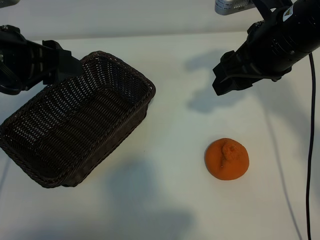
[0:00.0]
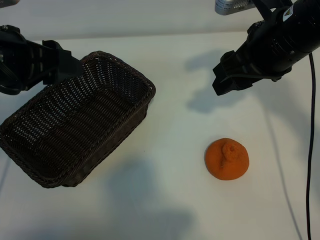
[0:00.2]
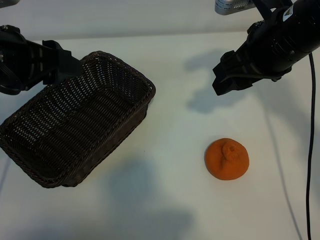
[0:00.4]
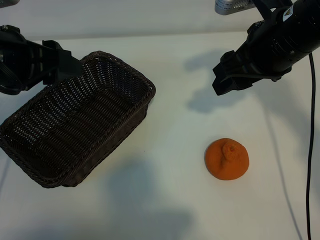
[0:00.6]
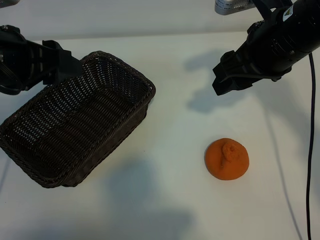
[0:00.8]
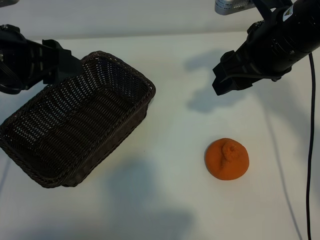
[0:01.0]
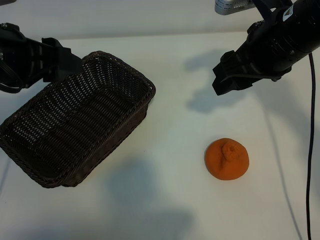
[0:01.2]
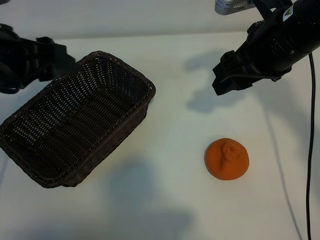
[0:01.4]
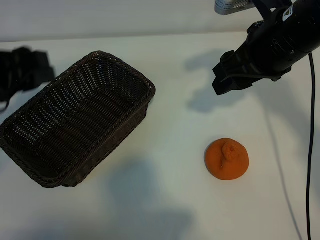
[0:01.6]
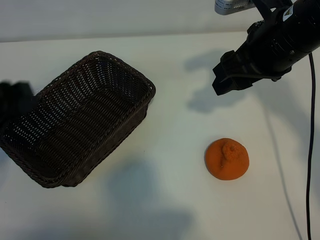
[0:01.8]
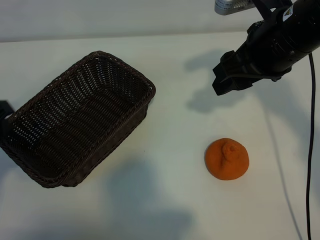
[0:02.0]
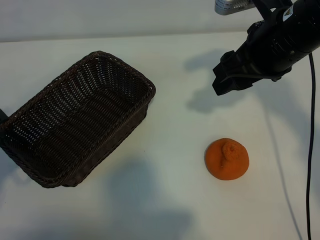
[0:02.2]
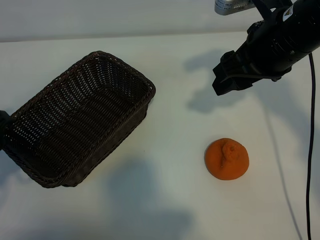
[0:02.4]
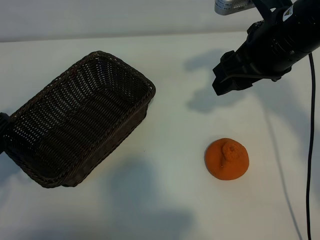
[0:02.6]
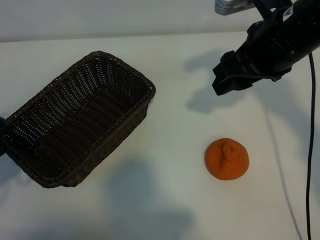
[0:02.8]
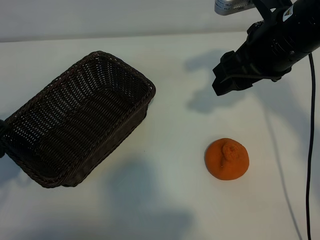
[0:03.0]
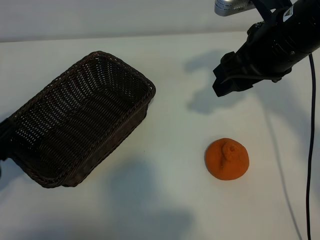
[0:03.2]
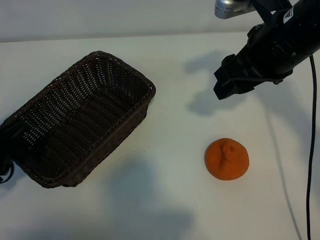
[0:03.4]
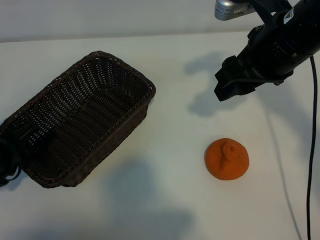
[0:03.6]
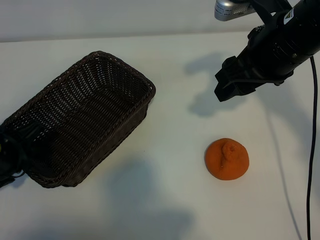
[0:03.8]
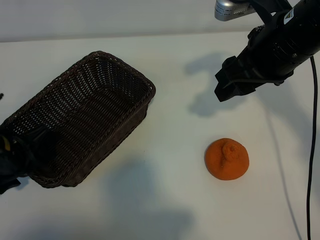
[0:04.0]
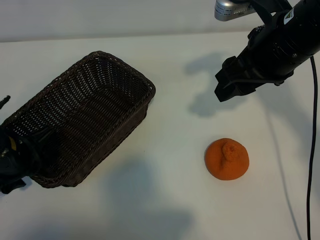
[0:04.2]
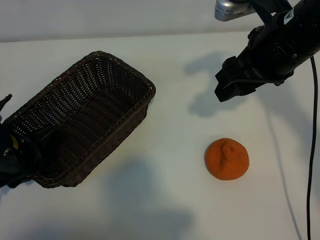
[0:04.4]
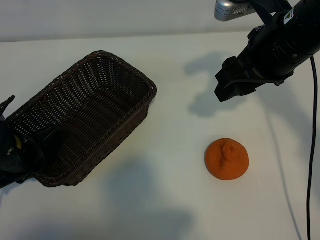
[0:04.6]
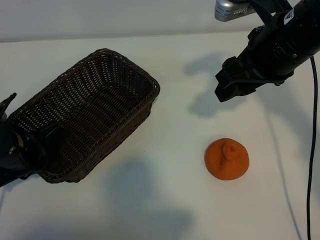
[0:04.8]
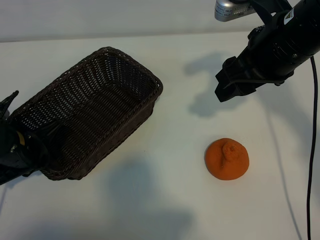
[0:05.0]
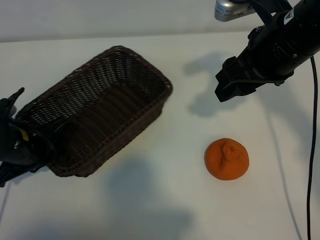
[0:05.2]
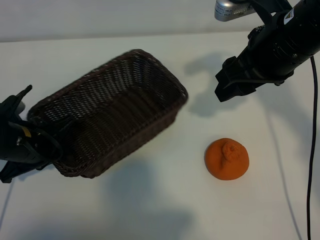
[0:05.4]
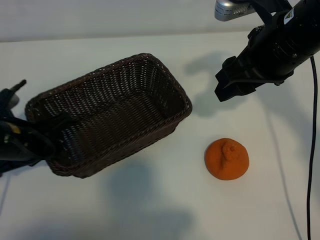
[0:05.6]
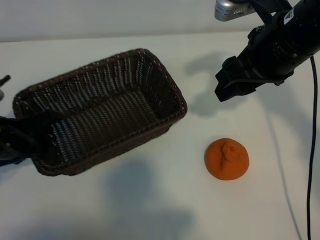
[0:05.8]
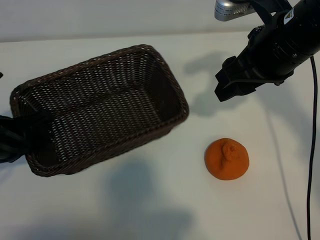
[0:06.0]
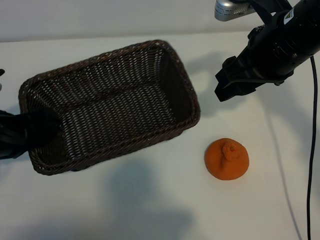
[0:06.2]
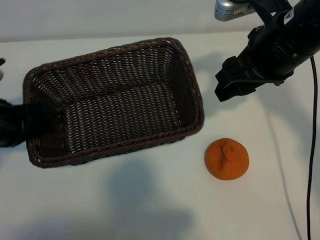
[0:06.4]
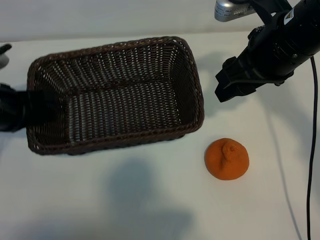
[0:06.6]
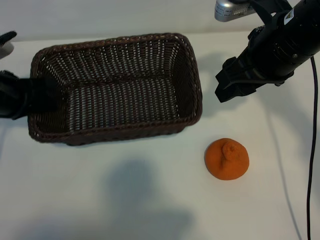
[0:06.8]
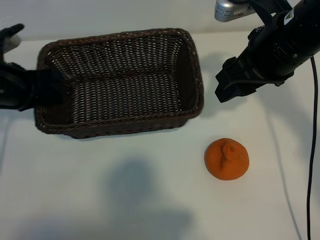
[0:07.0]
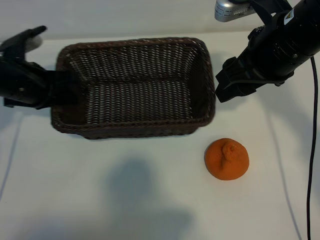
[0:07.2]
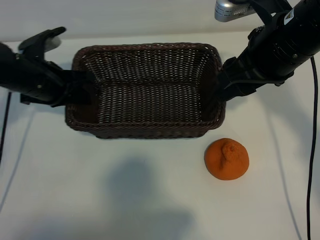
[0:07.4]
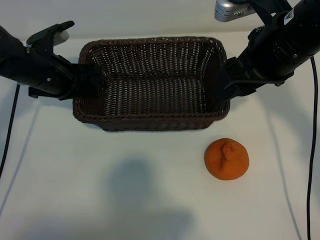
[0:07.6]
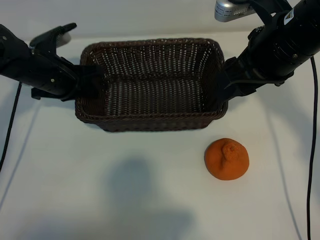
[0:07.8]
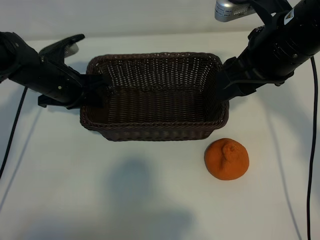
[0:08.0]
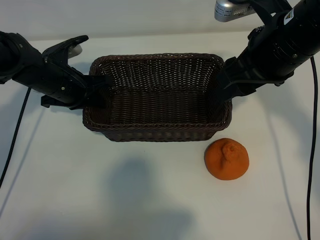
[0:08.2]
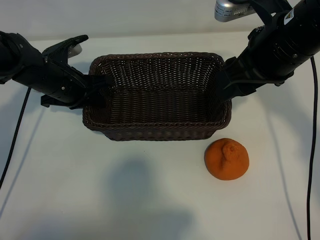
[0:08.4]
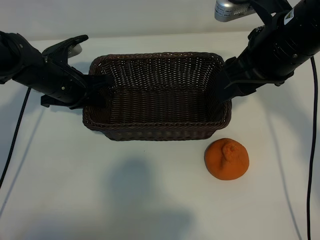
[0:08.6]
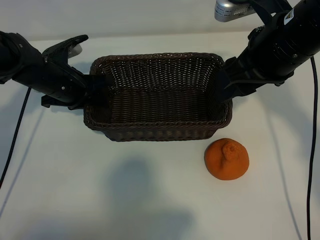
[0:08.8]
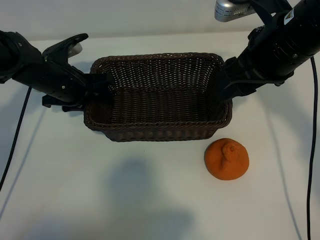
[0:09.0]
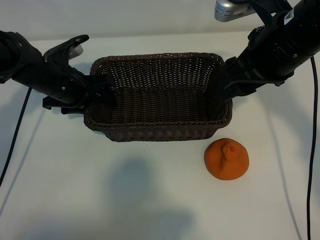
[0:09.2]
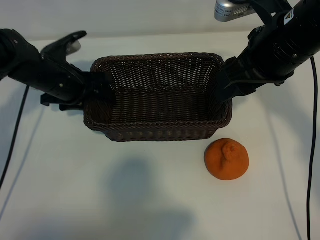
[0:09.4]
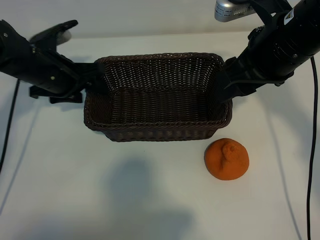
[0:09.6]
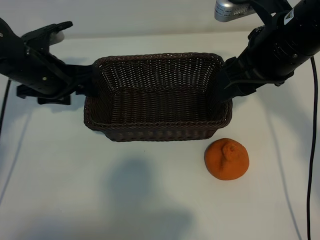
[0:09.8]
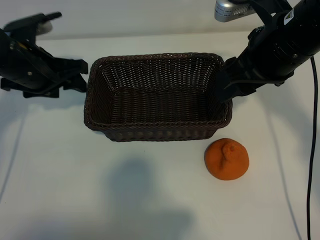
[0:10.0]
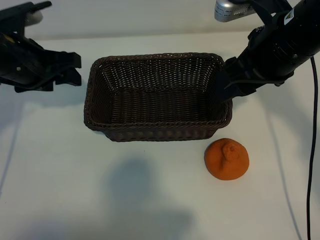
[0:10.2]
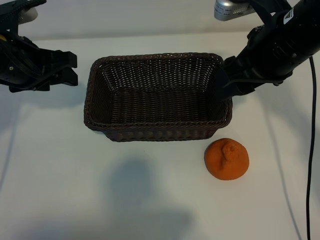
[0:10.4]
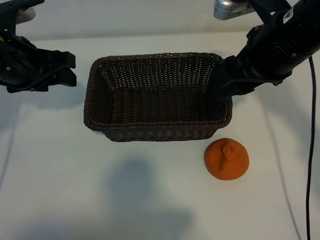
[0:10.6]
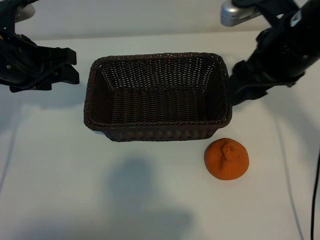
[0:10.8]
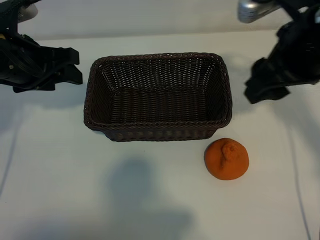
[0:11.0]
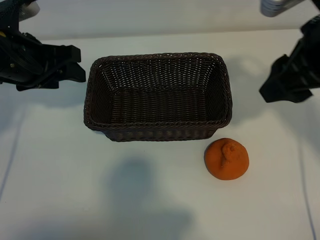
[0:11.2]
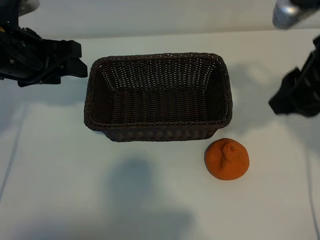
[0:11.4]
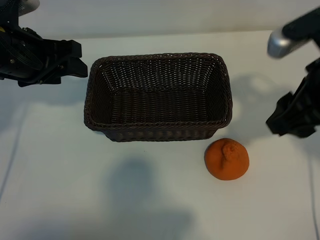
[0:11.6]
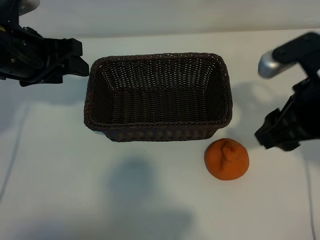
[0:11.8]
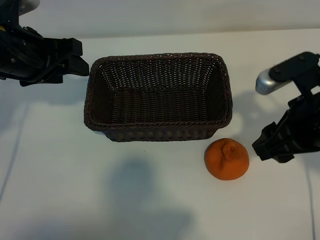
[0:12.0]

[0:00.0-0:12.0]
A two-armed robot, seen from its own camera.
Task of the whole recording: pick up the orange and put it into the basket.
Step, 0:01.0 to 0:04.8: Grasp the basket with left gripper.
Step, 0:05.0 to 0:08.8: Place the basket in the center of view with left gripper.

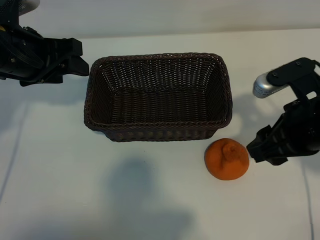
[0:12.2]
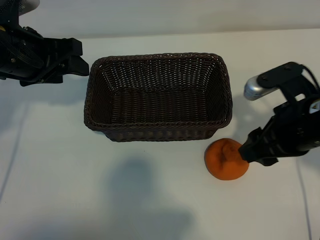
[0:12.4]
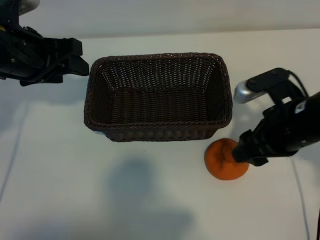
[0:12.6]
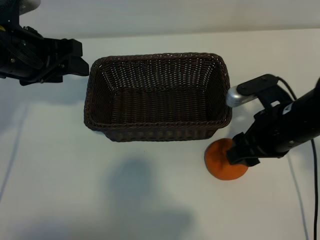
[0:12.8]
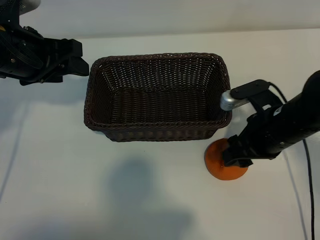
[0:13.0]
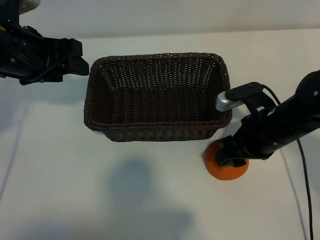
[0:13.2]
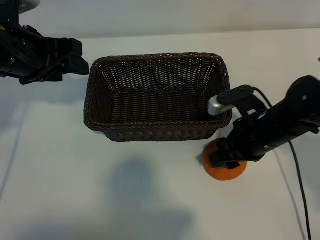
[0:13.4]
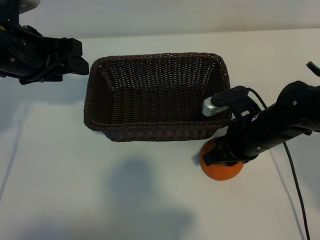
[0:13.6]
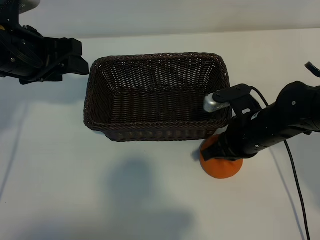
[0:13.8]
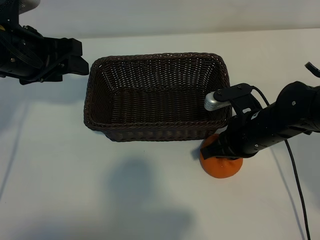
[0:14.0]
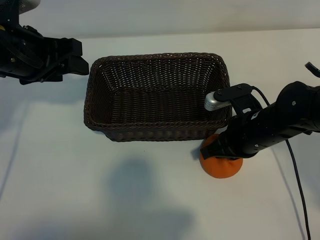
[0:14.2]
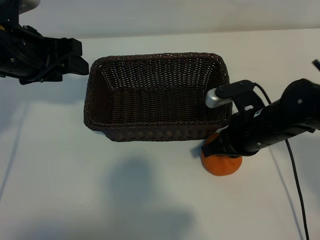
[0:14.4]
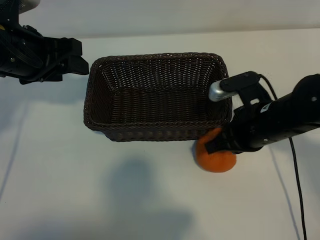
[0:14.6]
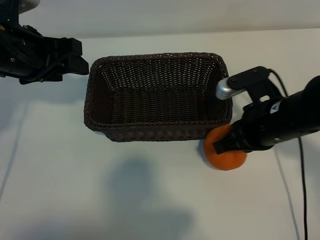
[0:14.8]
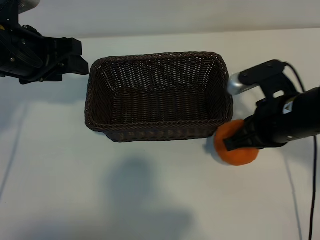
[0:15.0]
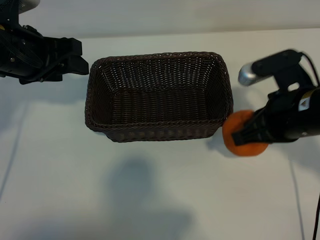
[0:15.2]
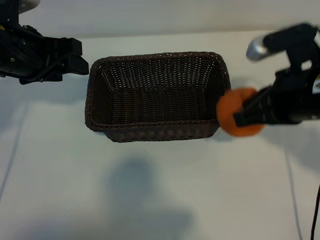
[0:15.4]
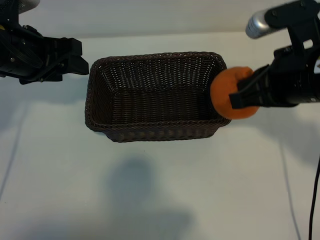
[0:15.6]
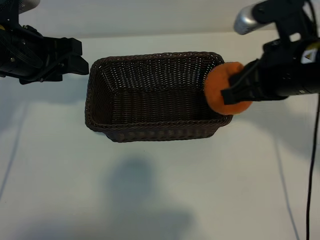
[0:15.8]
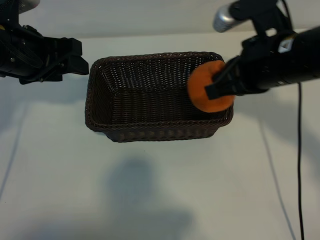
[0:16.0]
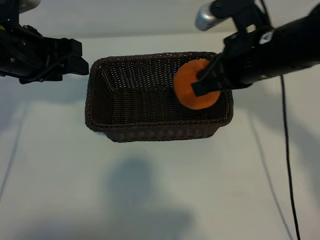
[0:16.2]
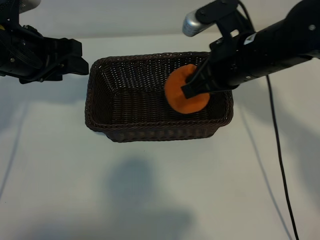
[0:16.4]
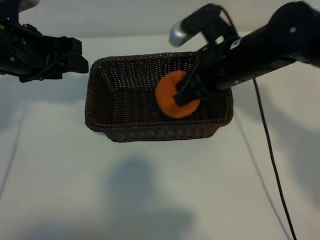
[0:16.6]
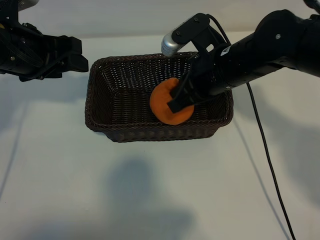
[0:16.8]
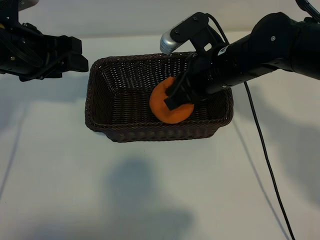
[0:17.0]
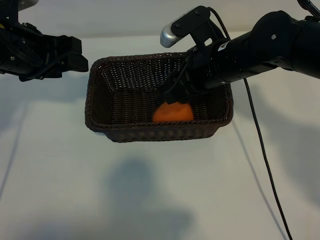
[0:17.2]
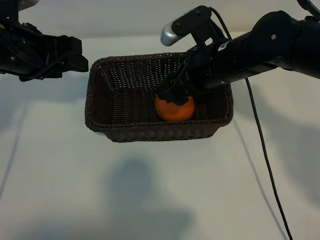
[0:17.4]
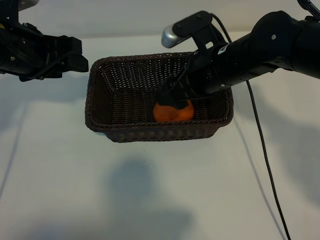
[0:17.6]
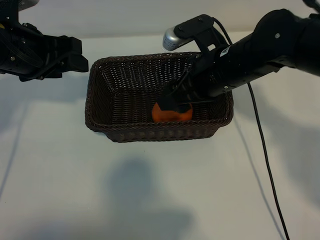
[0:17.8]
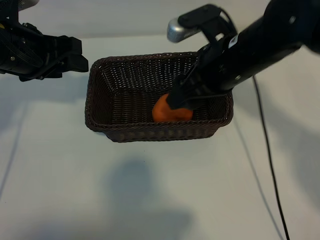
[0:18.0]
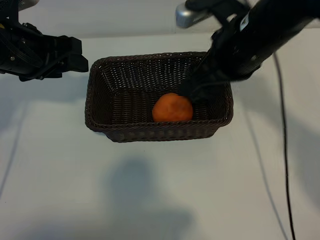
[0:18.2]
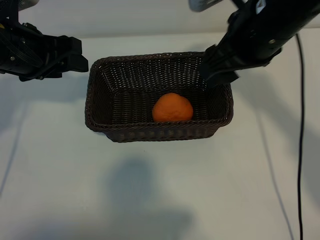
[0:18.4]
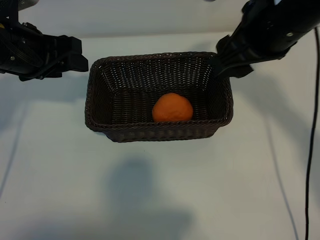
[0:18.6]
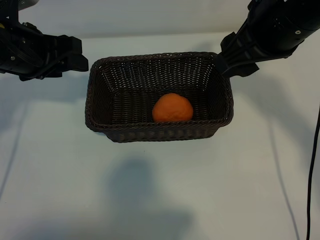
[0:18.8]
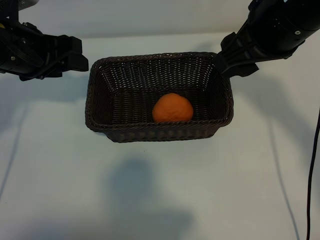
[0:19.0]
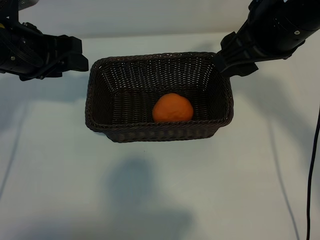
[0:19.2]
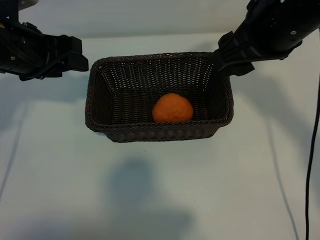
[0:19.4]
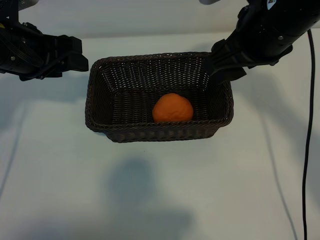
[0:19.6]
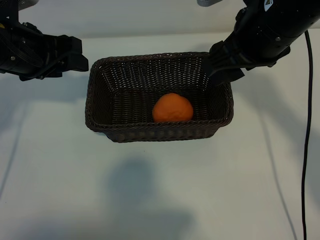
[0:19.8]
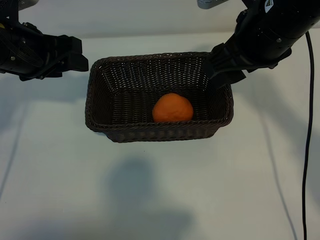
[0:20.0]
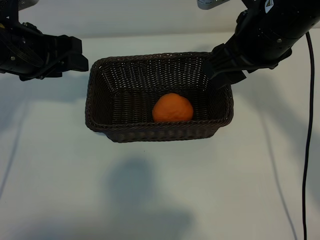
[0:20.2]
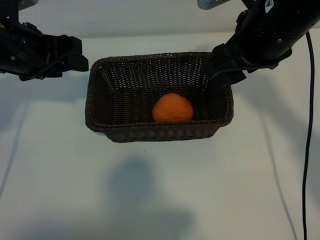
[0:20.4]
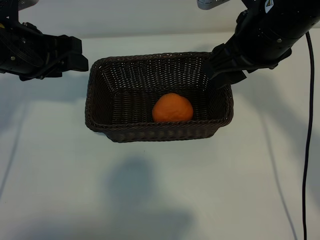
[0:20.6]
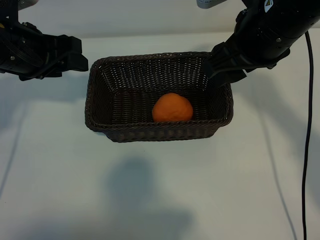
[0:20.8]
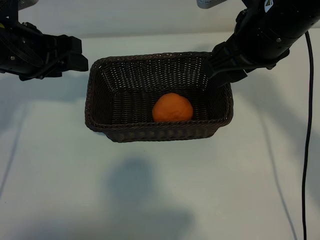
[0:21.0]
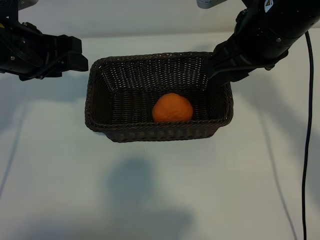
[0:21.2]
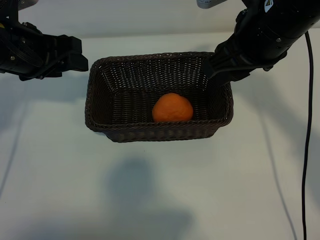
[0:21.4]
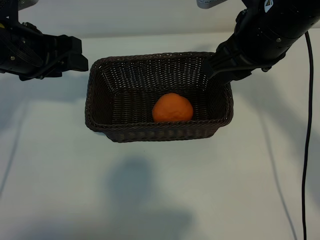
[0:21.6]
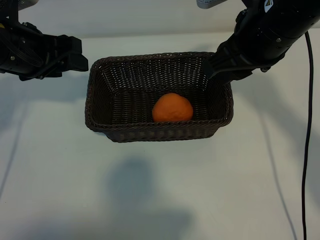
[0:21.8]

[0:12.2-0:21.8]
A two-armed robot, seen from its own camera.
Task of the whole recording: pick up the orange and put it into the basket.
Step, 0:14.0 to 0:17.2: Place the orange in the basket with right gripper.

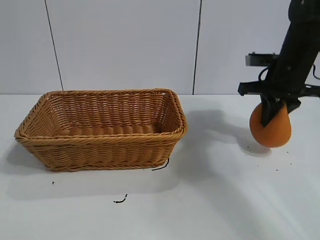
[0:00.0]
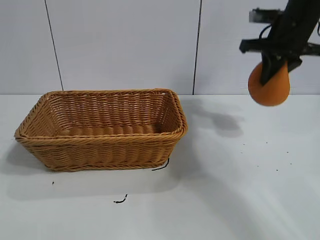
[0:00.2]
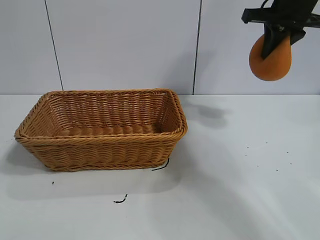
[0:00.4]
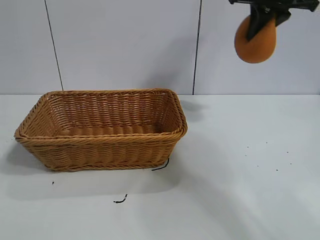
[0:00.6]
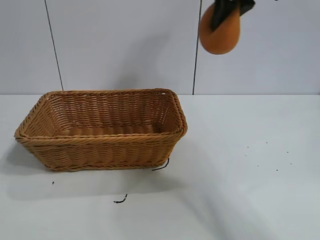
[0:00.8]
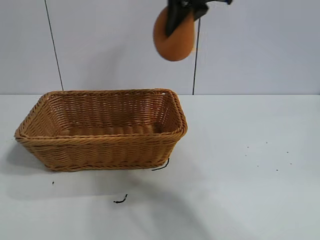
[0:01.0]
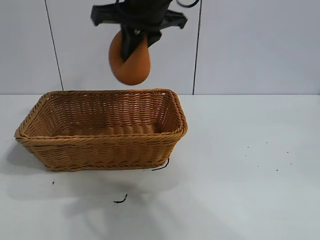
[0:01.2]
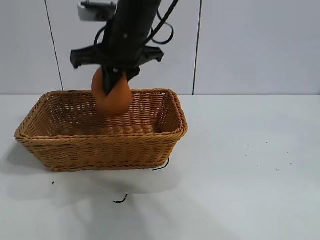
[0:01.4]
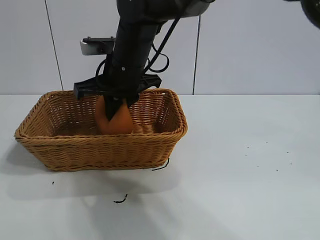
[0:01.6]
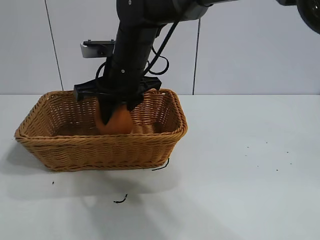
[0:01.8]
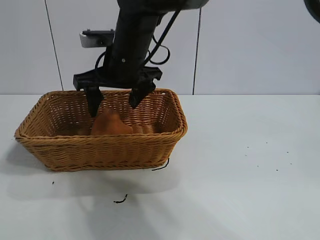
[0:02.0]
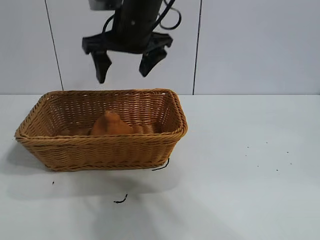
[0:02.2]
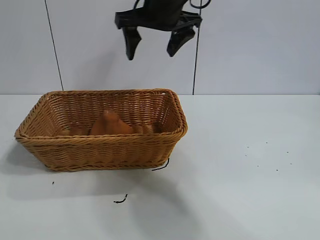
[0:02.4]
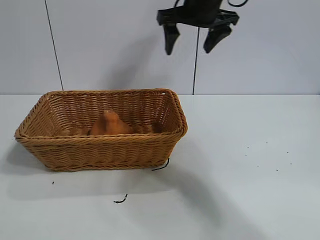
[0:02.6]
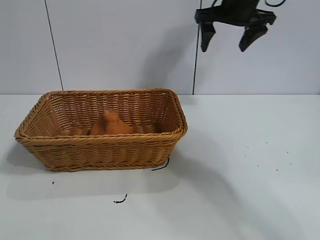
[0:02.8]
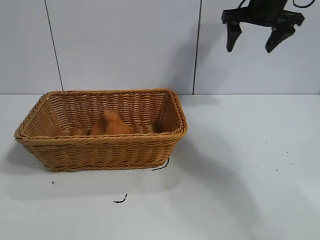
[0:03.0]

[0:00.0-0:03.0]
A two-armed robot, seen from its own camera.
Task of the whole recording: pick up the orange and put it into the basket.
Step, 0:00.0 to 0:01.8: Place the orange in the basket with right gripper.
